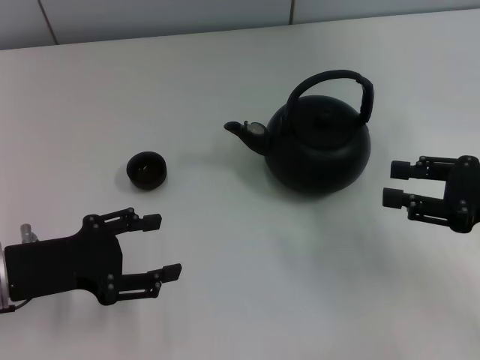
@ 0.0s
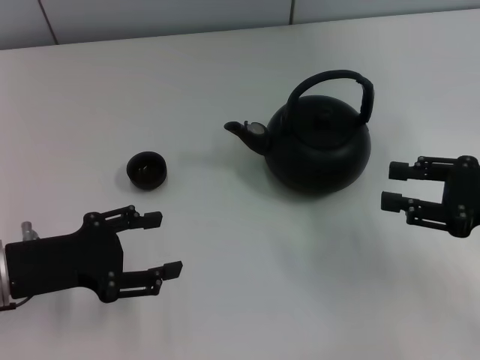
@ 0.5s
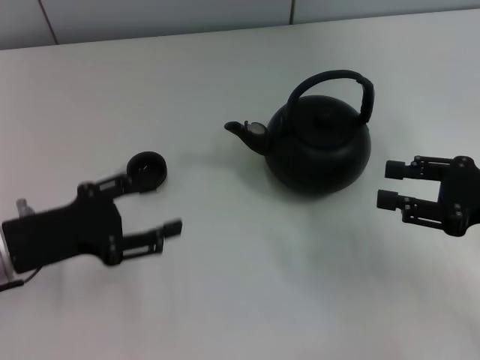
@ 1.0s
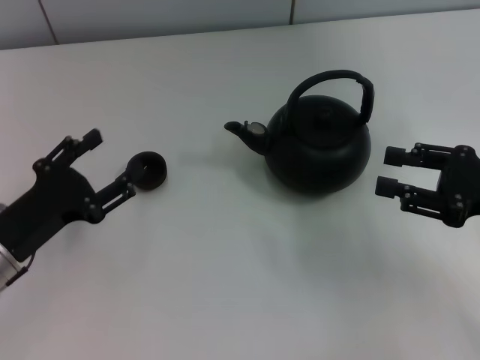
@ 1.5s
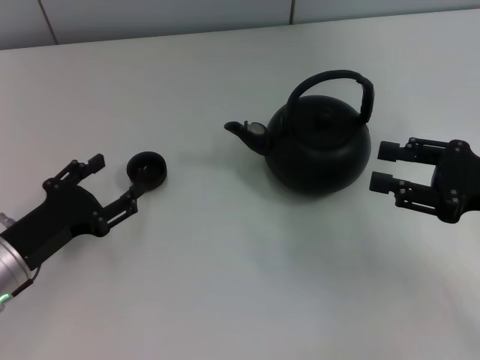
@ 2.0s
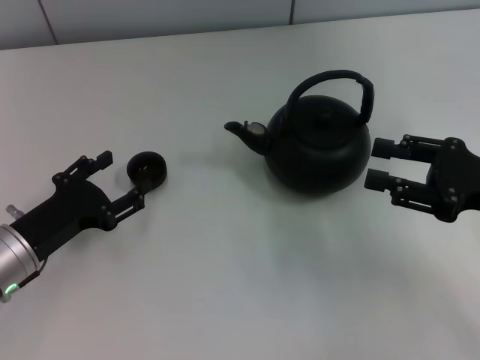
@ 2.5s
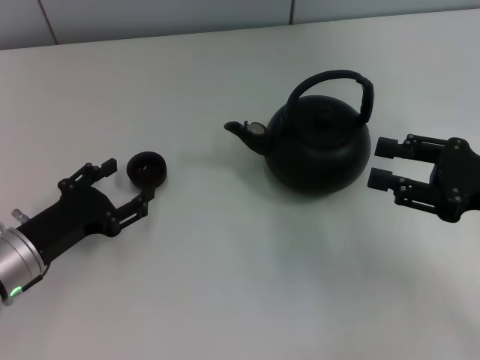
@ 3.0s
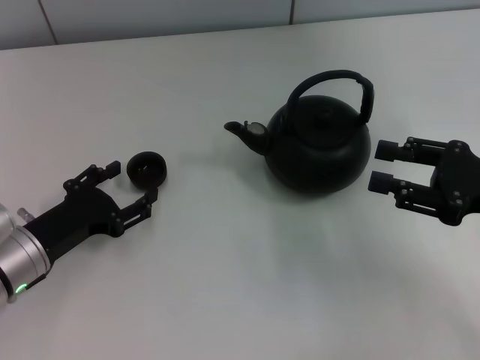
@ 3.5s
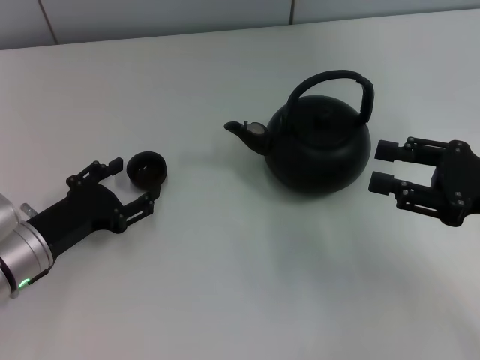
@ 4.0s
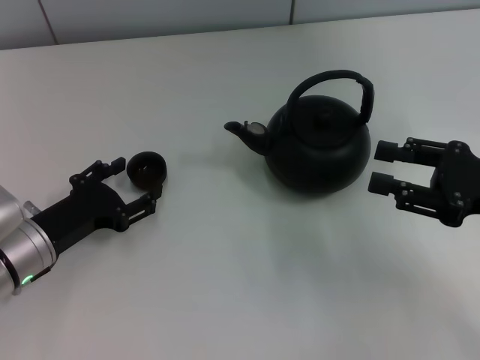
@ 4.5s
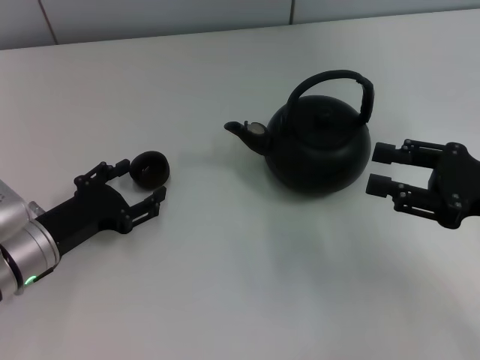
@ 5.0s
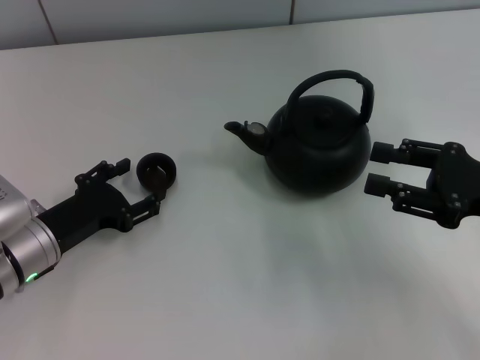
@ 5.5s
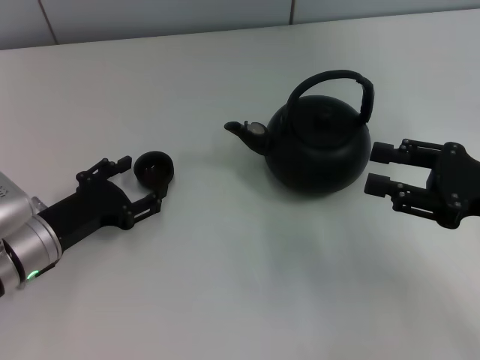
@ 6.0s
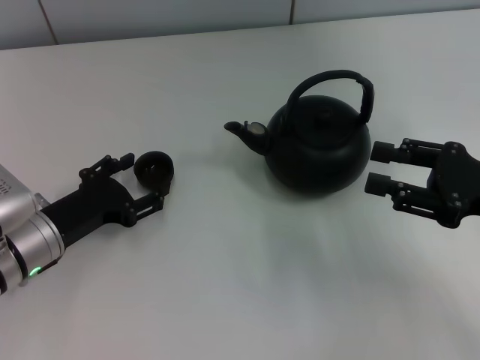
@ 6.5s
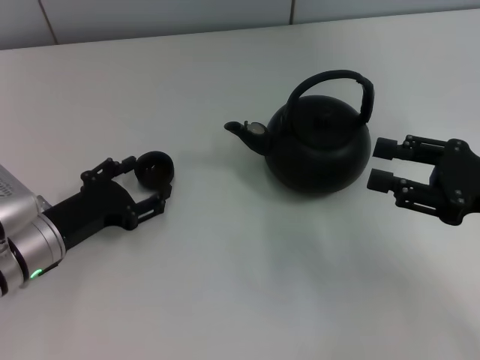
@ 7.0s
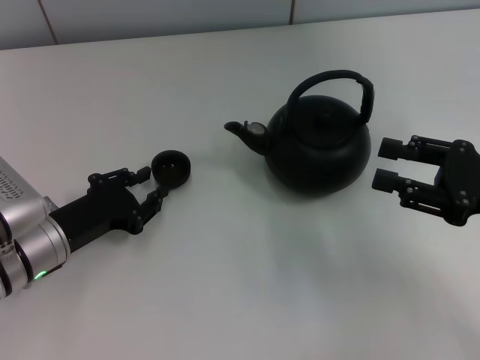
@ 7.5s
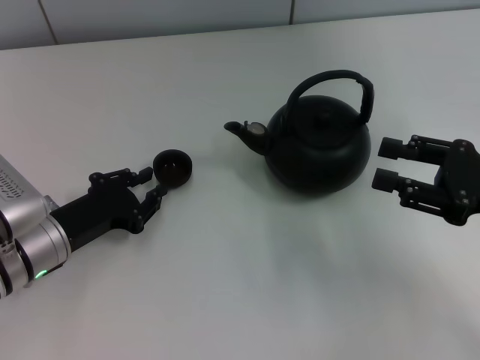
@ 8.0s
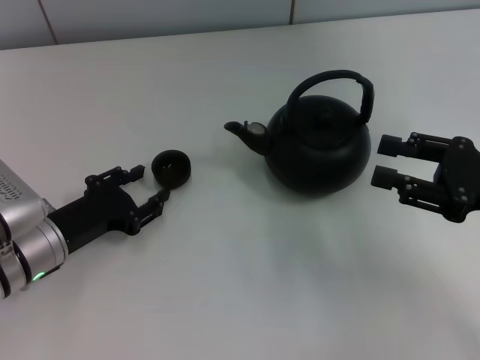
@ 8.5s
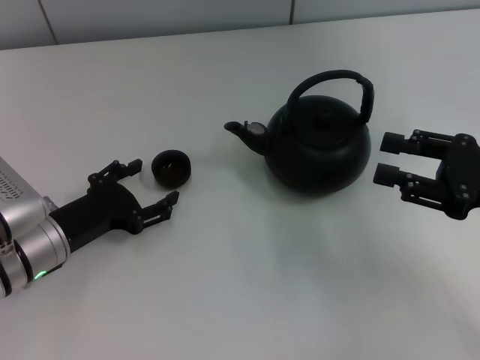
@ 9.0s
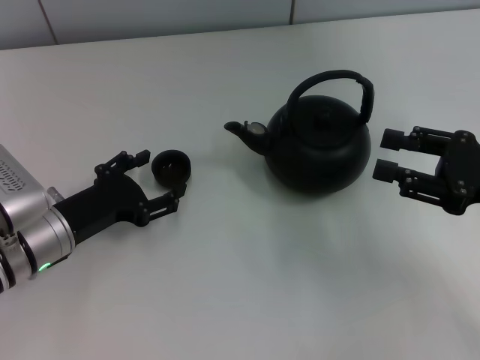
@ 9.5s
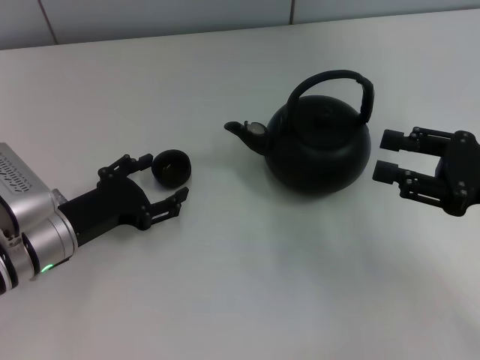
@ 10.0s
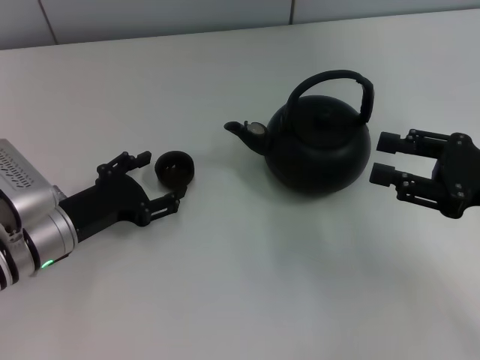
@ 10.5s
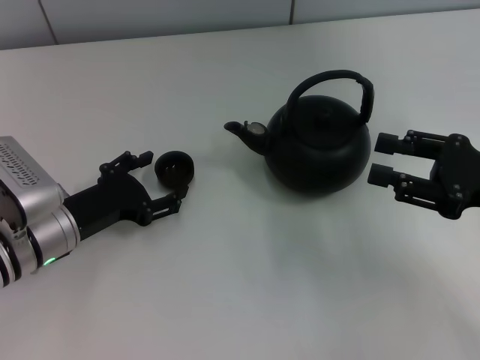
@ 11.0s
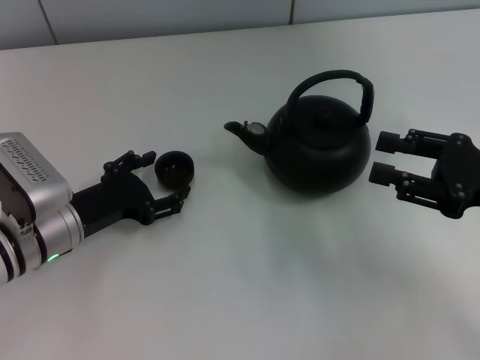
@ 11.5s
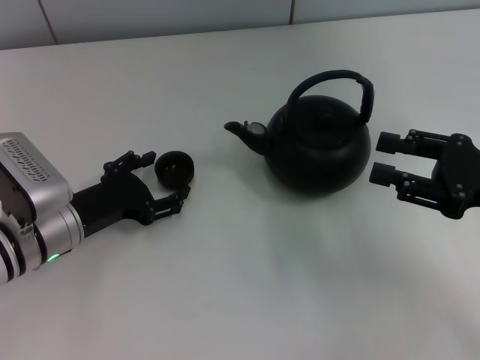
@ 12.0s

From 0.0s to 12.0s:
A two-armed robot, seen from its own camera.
Task of the whole recording: Grasp the handle of the teapot with one hand and pour tea into the teacup.
From 0.0s to 2.0s: The left gripper goes about 5 cm downward.
From 2.0s to 4.0s: The grippers stay close to where they were, moving slightly.
From 4.0s to 6.0s: Both grippers stay about where they are.
From 6.0s to 8.0s: The left gripper closes.
From 8.0s to 10.0s: The left gripper opens its fingers.
From 10.0s to 12.0s: The two grippers keep their place.

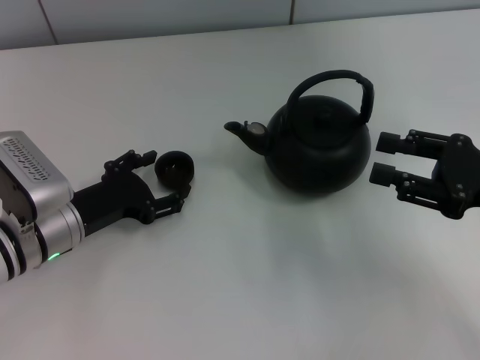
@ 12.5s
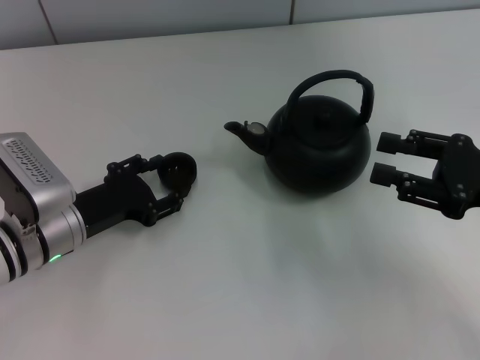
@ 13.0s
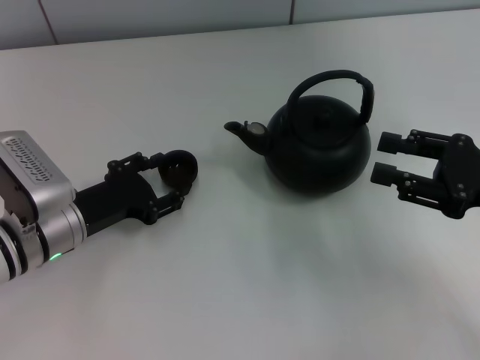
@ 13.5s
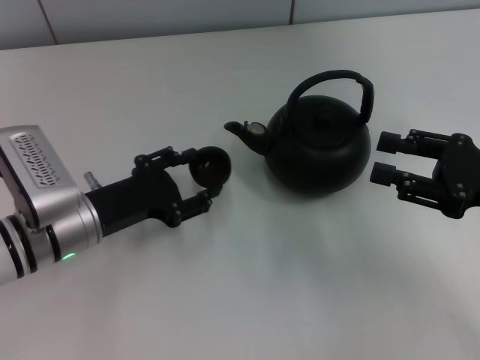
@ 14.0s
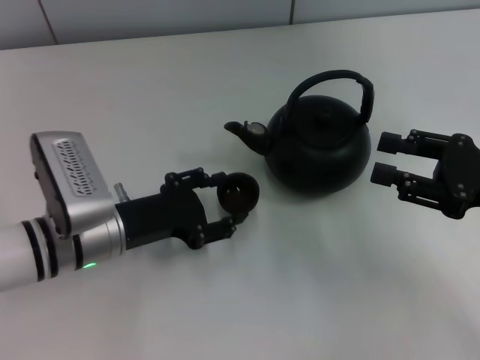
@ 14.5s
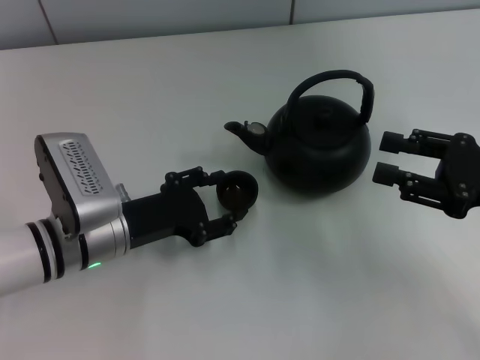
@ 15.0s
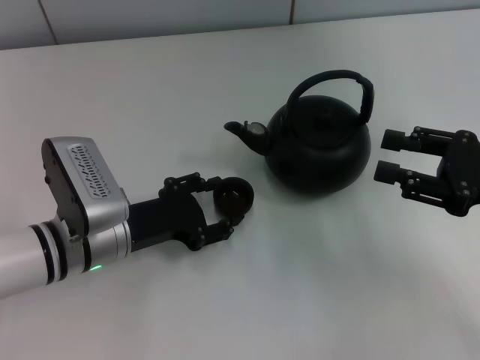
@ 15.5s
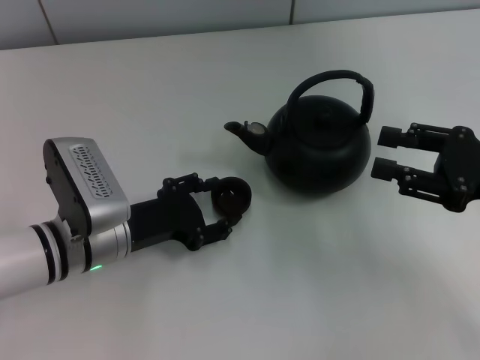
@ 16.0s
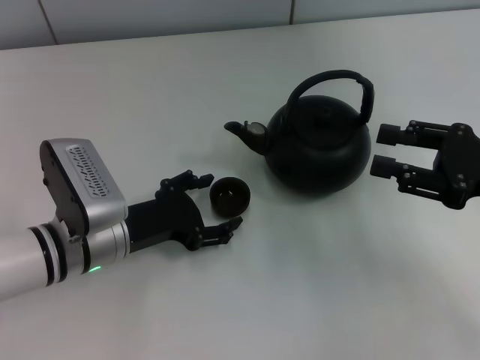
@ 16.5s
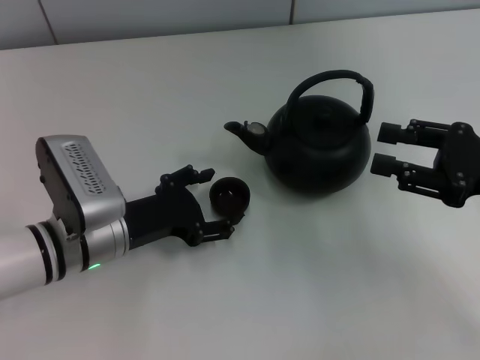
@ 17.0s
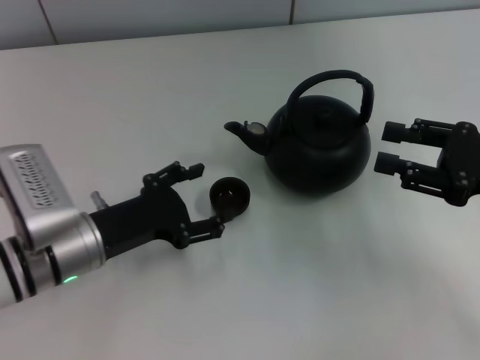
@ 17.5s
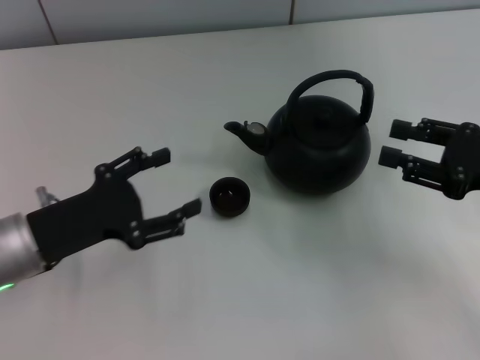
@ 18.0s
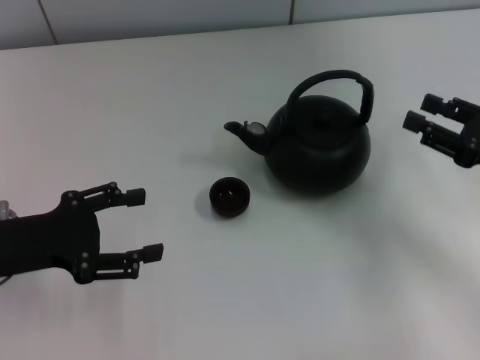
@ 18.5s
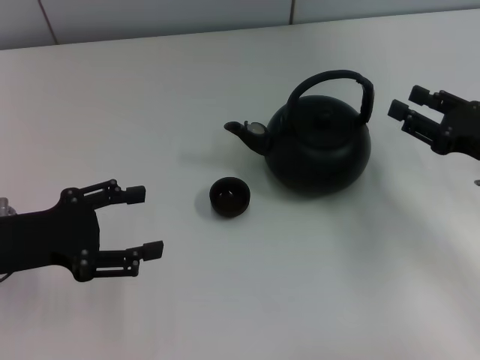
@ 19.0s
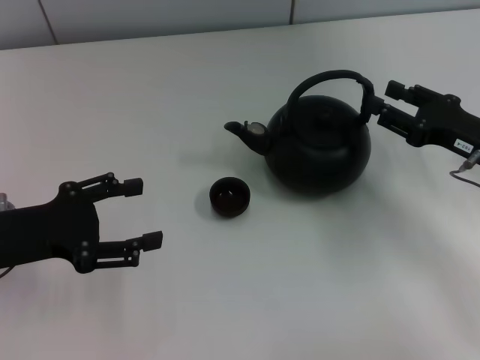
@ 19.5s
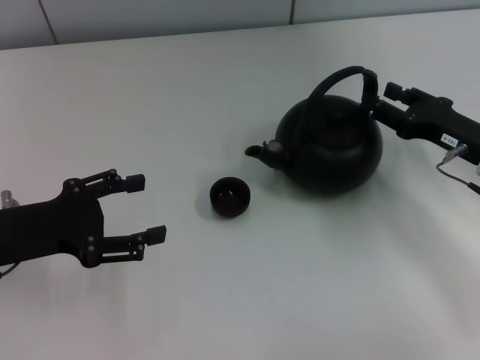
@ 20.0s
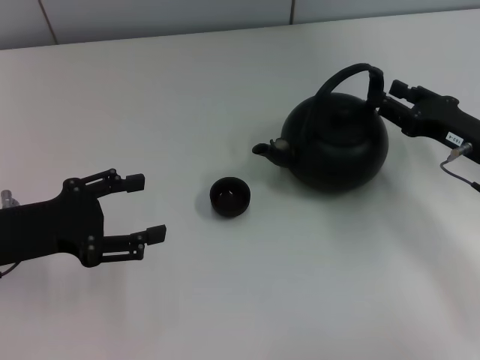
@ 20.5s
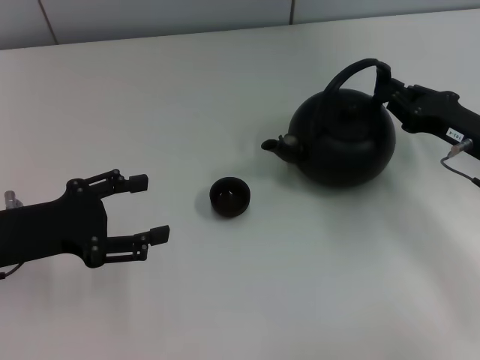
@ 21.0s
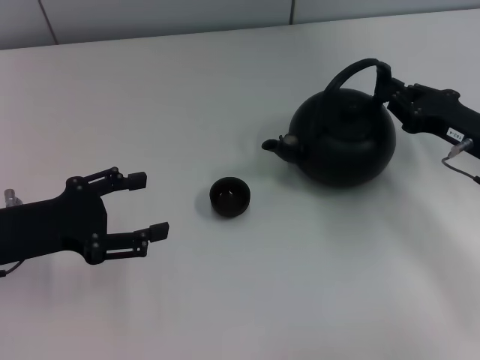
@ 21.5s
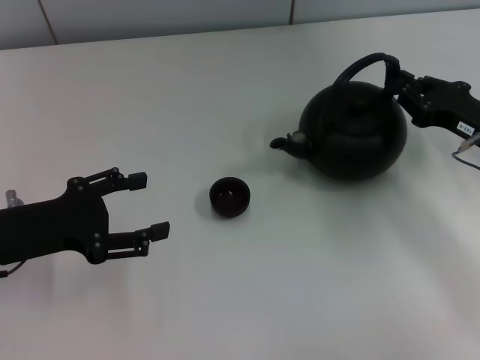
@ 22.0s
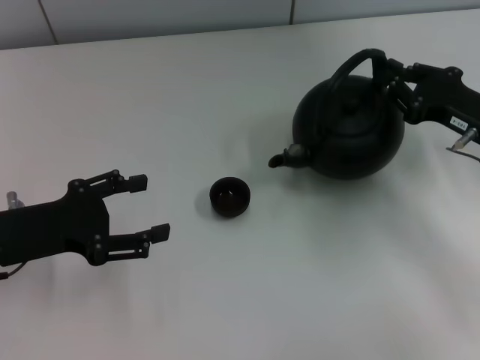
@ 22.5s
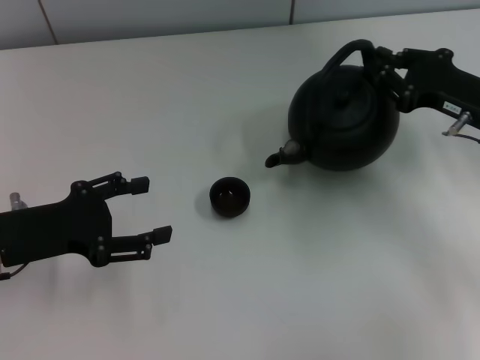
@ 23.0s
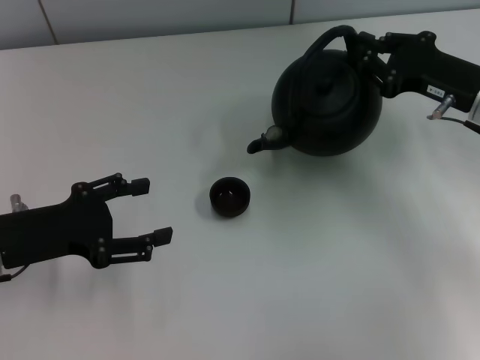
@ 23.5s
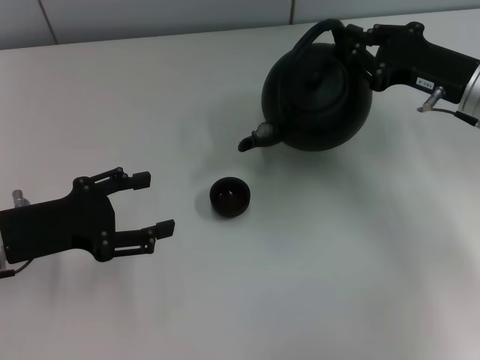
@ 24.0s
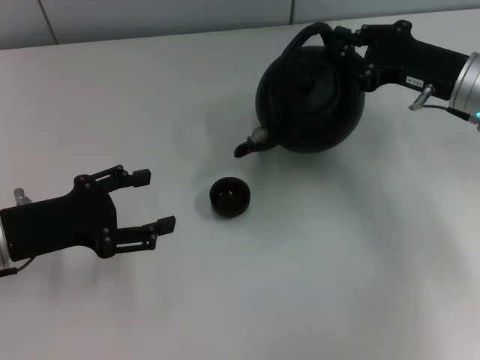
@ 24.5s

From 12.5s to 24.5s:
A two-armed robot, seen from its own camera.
Task of the whole recording: Grasp the handle of the teapot with one hand and pour tea into the teacup.
Step, from 14.5s to 17.0s: Place the teacup in the center of view with the left gripper.
Step, from 17.5s to 23.0s: Pick up the teapot with the right gripper.
From 12.5s to 16.5s: The grippers stay close to where they were, moving slightly.
From 16.5s to 18.5s: The left gripper moves to the left and upward, approximately 15 cm.
From 18.5s to 20.5s: The right gripper ends up some 5 cm from where it was.
From 20.5s to 22.5s: The right gripper closes up.
From 22.5s to 24.5s: The right gripper heads forward, covering approximately 5 cm.

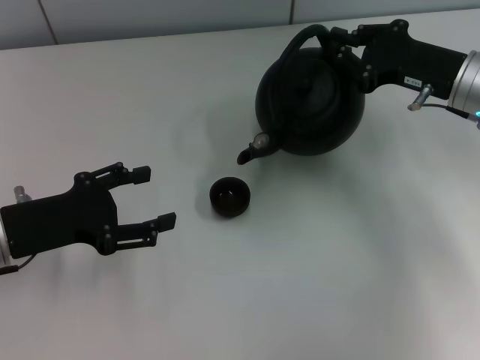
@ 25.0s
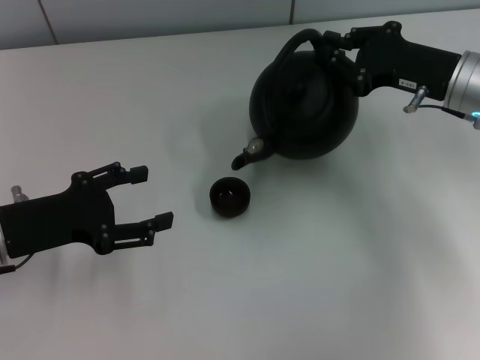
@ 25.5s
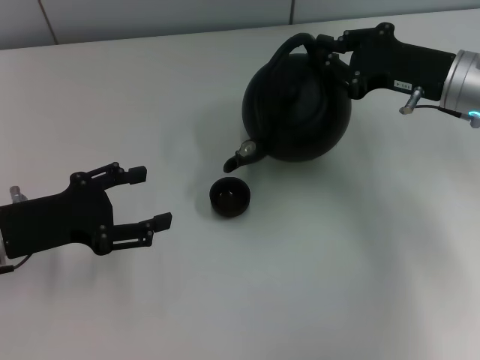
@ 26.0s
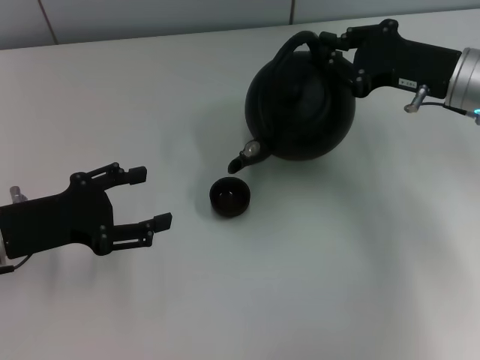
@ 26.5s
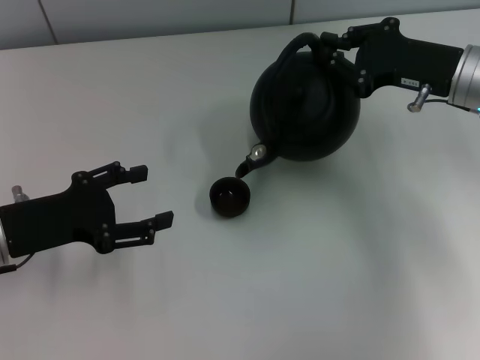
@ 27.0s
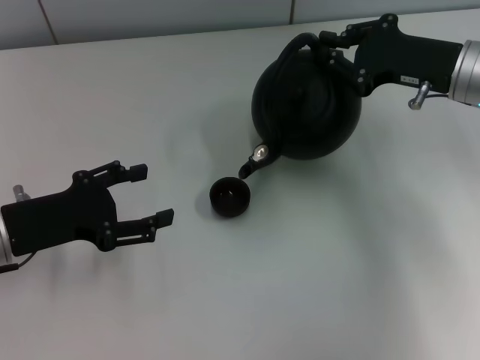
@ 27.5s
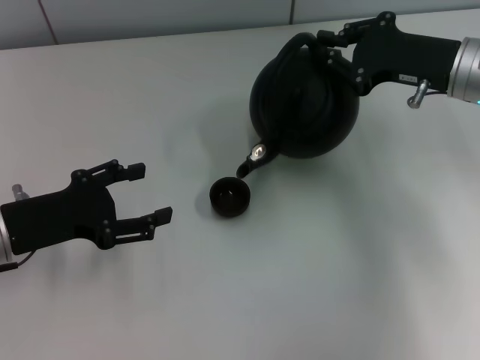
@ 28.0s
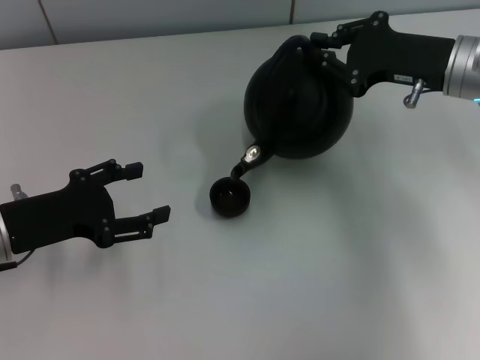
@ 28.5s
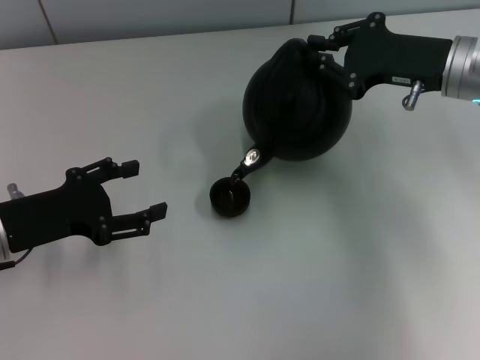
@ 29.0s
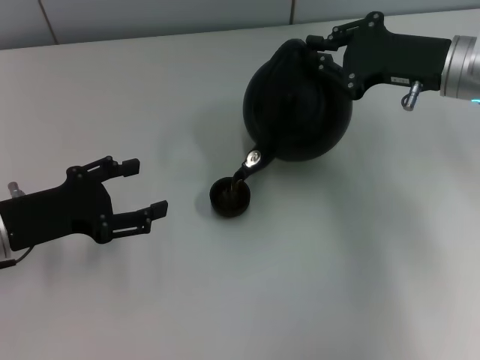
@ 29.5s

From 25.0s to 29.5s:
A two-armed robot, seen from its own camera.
Task of the whole recording: Grasp the handle of the teapot with one hand and pour tea into the teacup.
From 25.0s to 29.5s: The grippers stay close to where they were, moving slightly.
